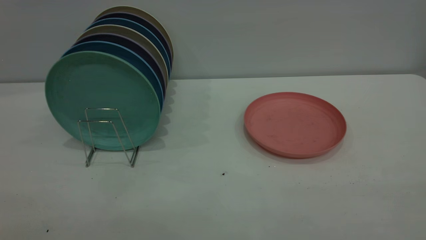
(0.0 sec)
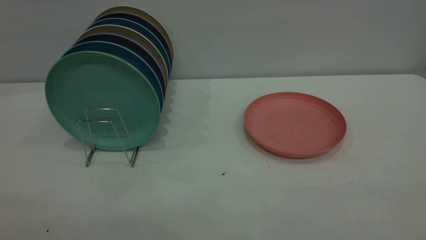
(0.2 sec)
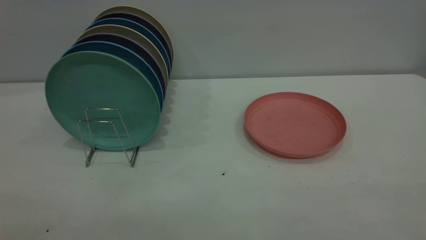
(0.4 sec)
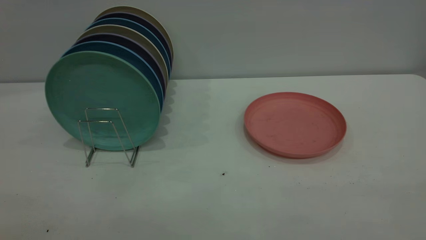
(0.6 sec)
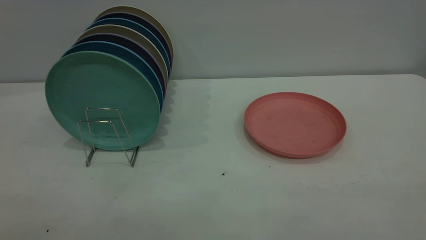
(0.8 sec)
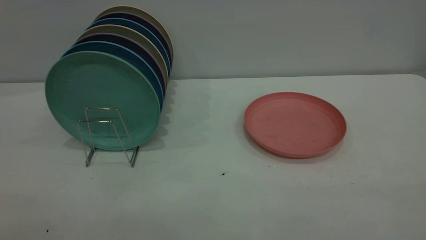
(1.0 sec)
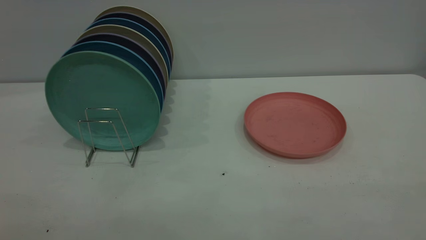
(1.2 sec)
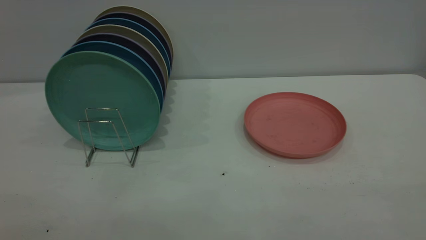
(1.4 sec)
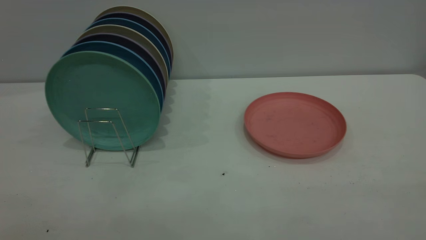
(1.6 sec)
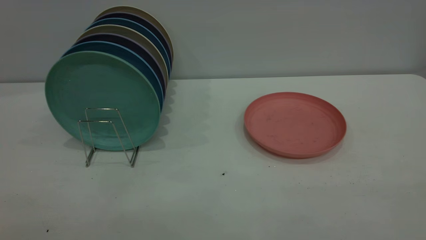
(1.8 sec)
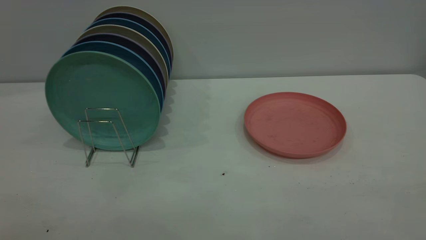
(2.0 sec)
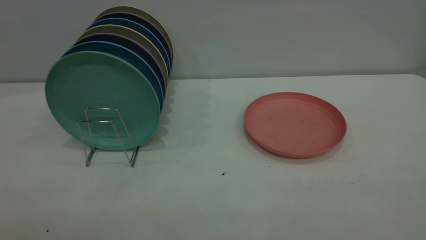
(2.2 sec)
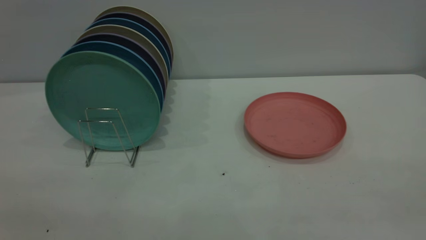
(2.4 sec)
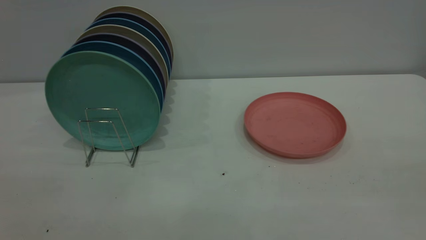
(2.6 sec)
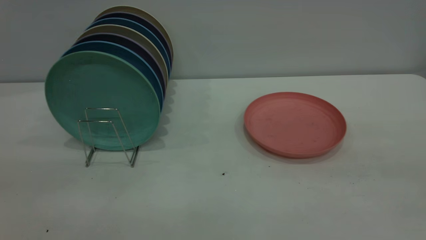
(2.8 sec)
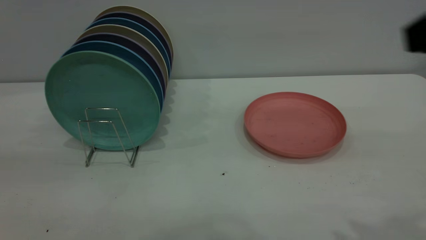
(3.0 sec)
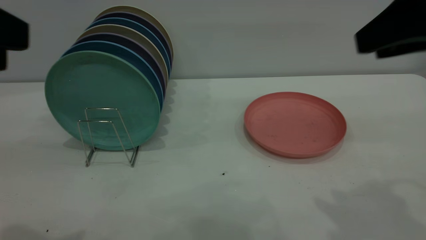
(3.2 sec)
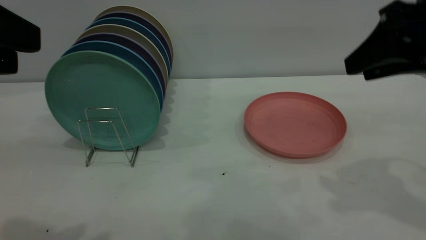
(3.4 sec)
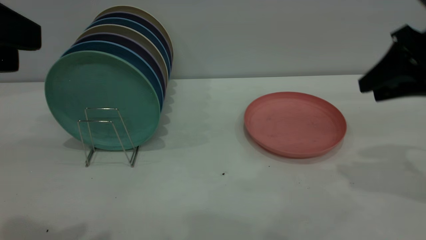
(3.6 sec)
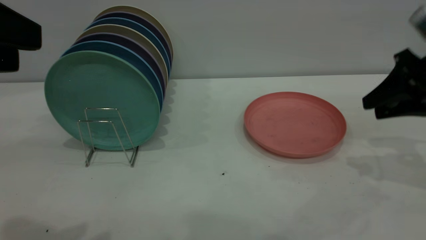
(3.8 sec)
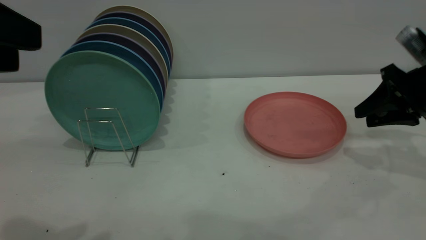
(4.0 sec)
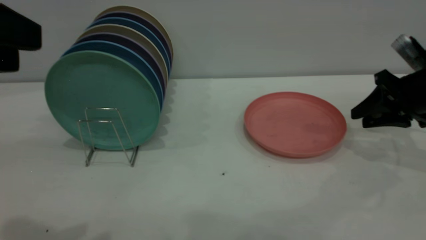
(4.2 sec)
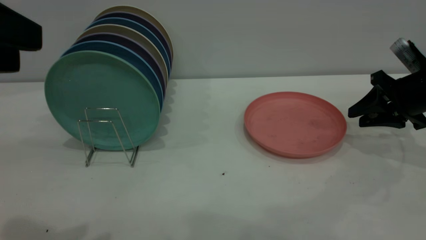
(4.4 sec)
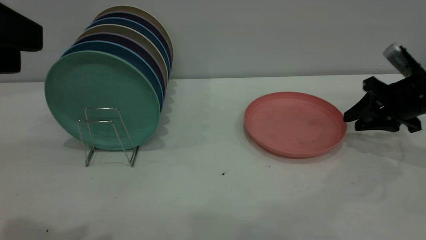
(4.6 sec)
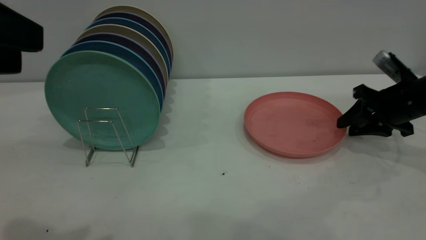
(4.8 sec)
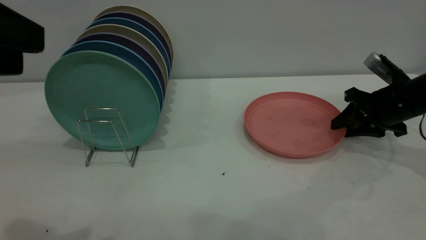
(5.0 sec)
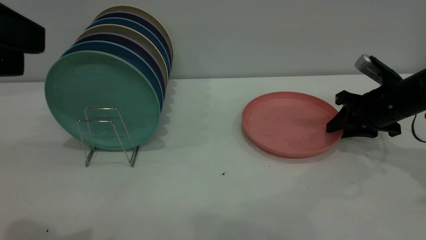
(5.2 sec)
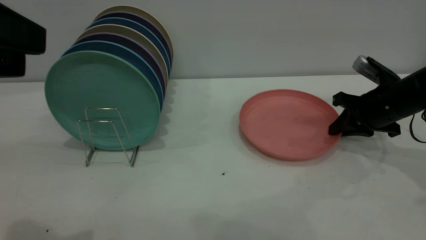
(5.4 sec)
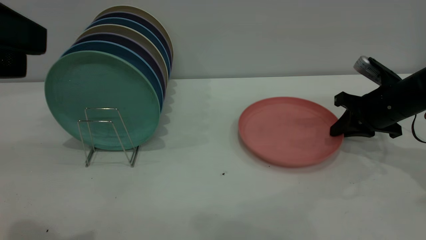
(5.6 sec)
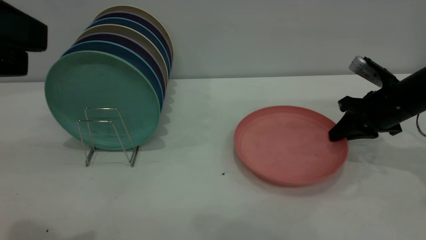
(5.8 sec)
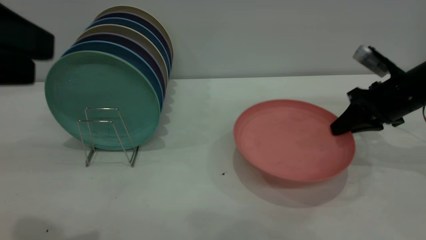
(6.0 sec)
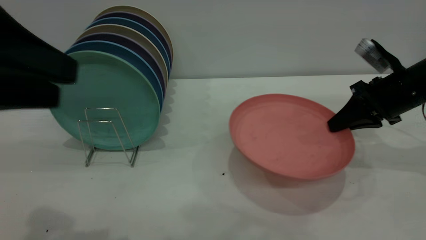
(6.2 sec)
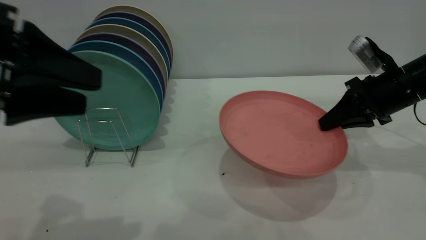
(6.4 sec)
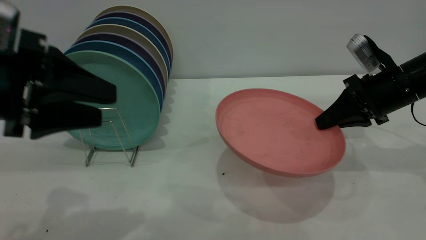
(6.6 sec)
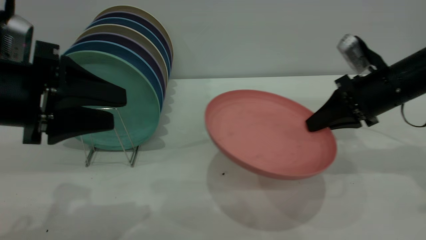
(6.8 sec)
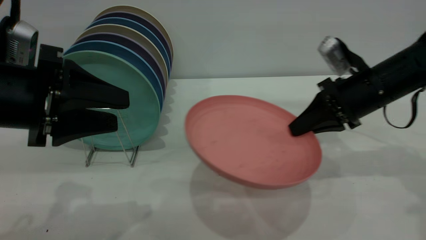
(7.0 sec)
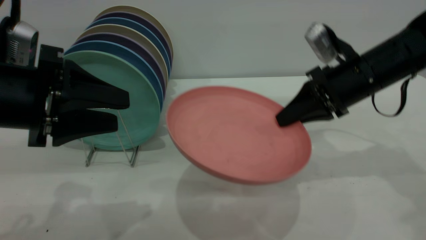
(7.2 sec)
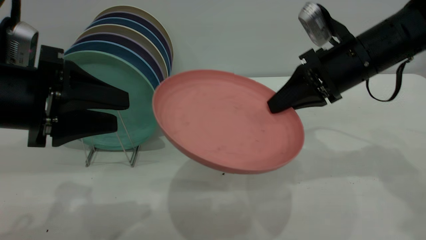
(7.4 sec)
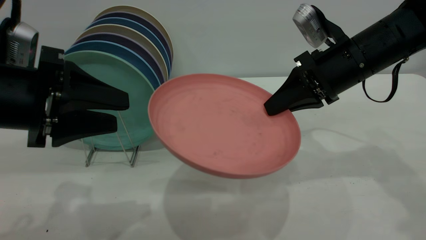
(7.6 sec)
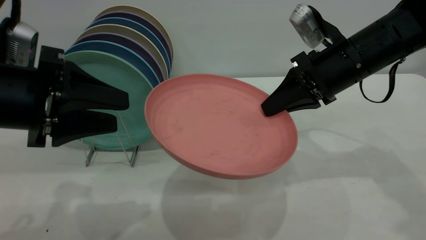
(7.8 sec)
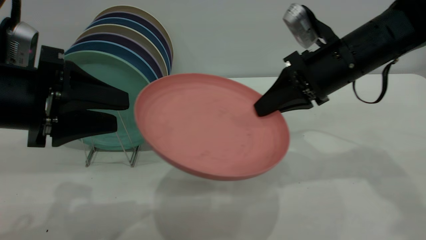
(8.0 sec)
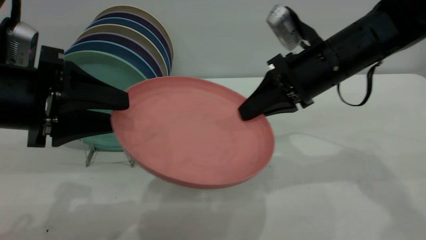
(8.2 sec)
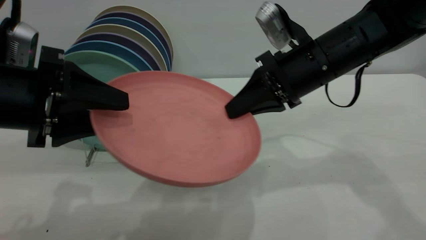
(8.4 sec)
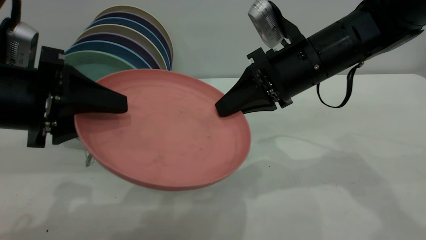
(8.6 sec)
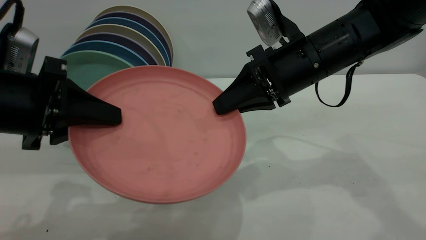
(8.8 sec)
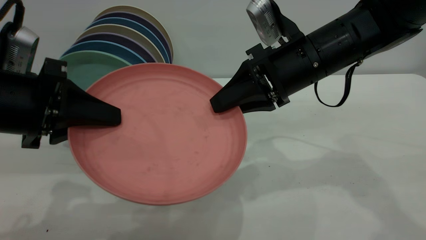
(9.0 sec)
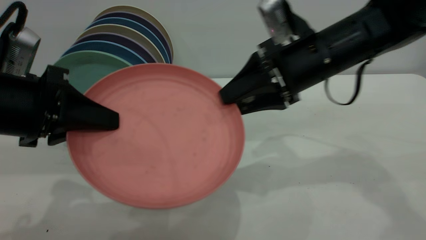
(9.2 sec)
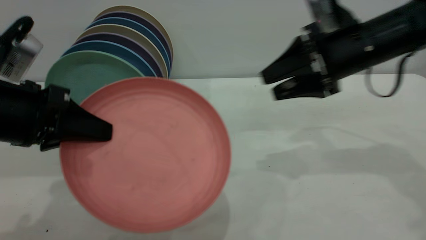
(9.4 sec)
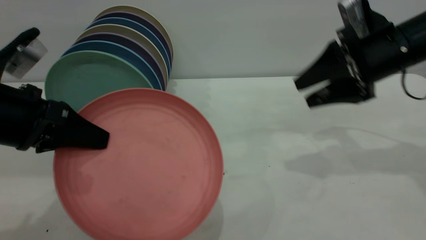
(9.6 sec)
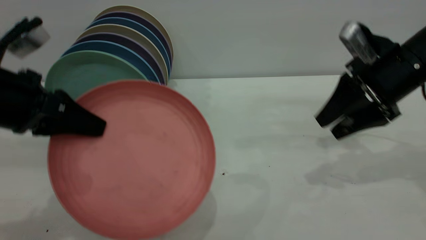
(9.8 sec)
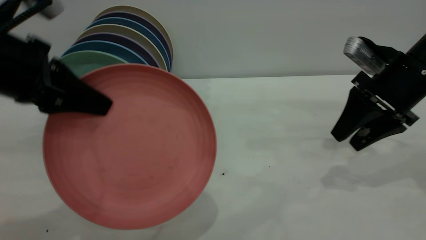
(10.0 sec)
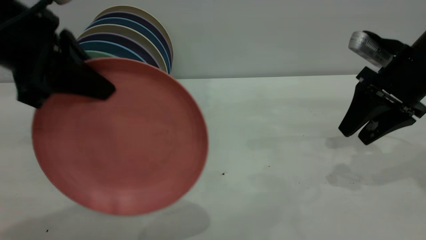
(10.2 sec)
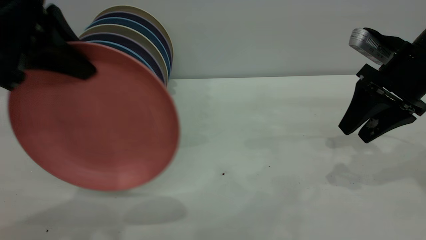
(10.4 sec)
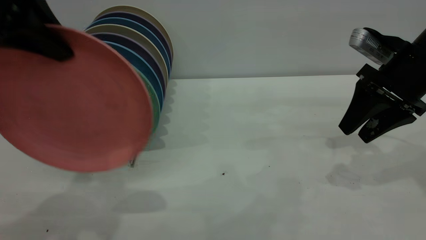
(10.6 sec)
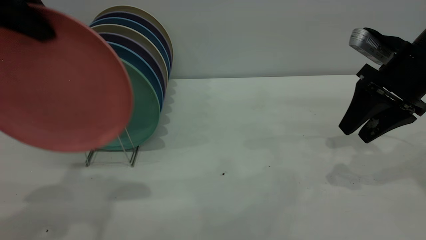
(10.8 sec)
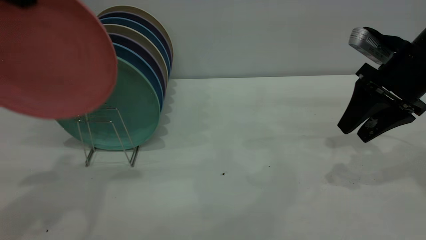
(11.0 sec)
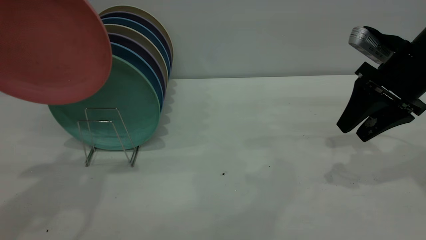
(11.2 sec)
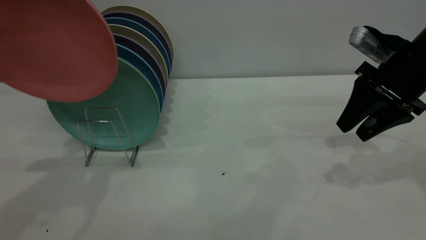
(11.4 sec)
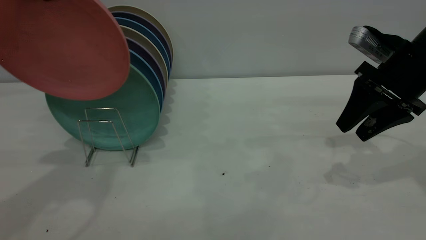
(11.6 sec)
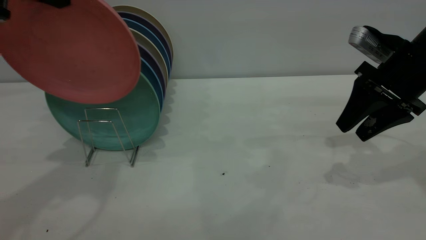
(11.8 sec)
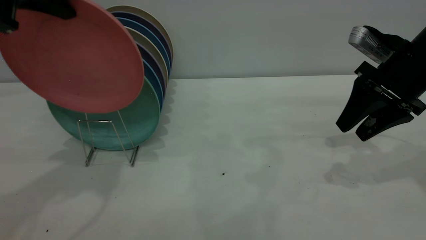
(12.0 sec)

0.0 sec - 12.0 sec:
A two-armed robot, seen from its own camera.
Task of the whole recording: the right gripper grasp the pink plate, the right gripper pass the pink plate to the left gripper, and the left gripper place the pink plate on the plate rack.
Step, 0.0 sec - 6.2 sec: Pick up the plate with the right gripper.
Step, 6.6 sec - 11.2 sec: Pass the plate from the right gripper to the left gripper.
0.0 sec - 1.6 sec: Neither gripper changes place.
1.6 sec - 3.0 sec: The right gripper moves forward, some 20 cm.
3.0 sec - 4.4 sec: The right gripper heads downward, forward and to the right, covering about 35 cm.
4.4 sec - 6.0 sec: The right gripper closes up.
6.0 sec - 7.6 sec: The right gripper shifts about 15 cm to the left and upward; the left gripper travels downward and forward by roughly 10 cm.
7.6 sec - 9.0 sec: The right gripper moves to the left, approximately 5 cm, and opens. The left gripper closes its fingers.
9.0 sec - 10.4 sec: The right gripper goes roughly 15 cm to the right, and opens up; the left gripper moves upward, roughly 10 cm.
10.4 sec - 12.0 sec: The left gripper heads forward, covering approximately 5 cm.

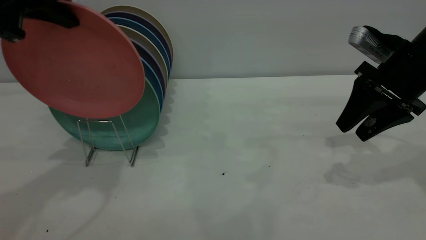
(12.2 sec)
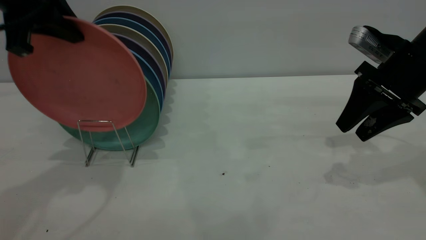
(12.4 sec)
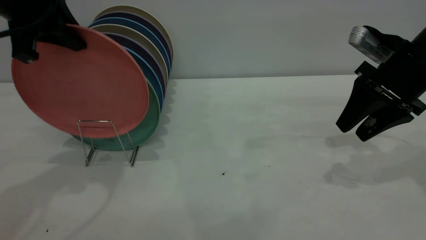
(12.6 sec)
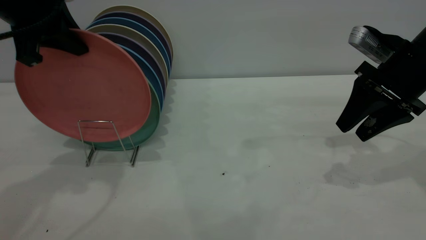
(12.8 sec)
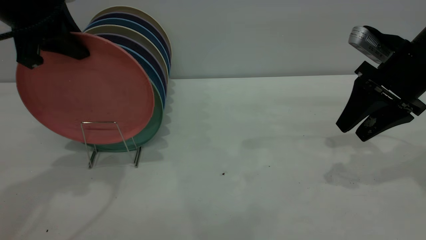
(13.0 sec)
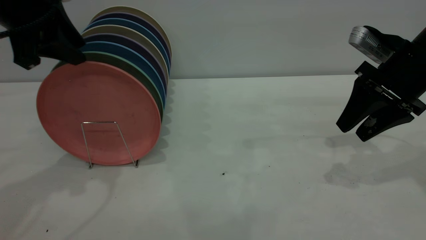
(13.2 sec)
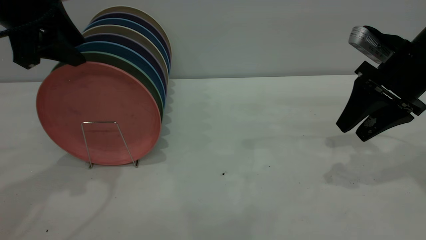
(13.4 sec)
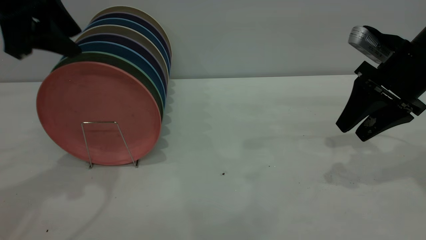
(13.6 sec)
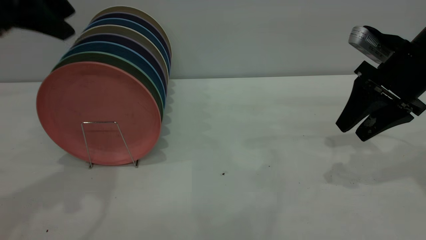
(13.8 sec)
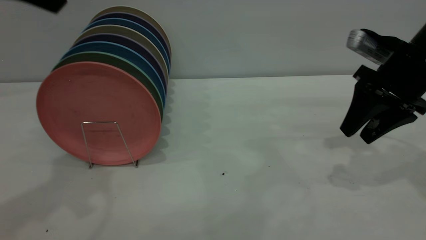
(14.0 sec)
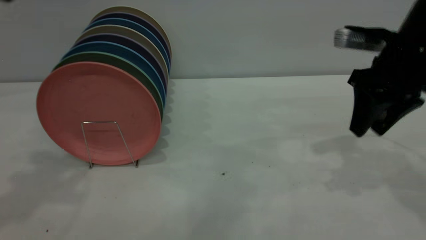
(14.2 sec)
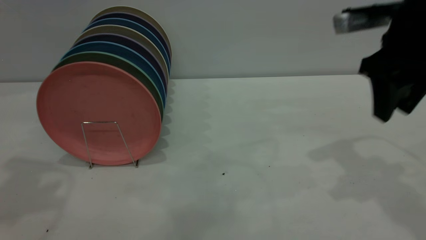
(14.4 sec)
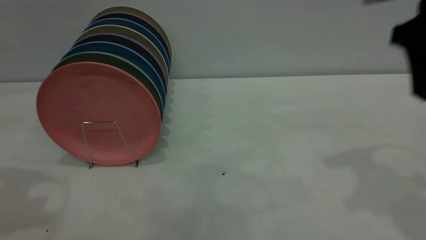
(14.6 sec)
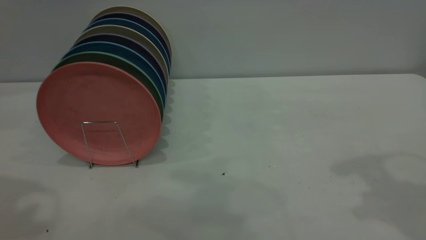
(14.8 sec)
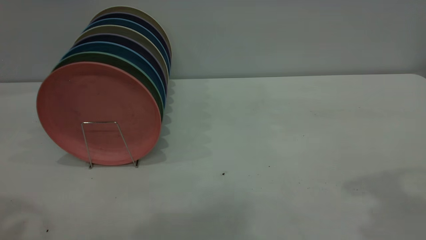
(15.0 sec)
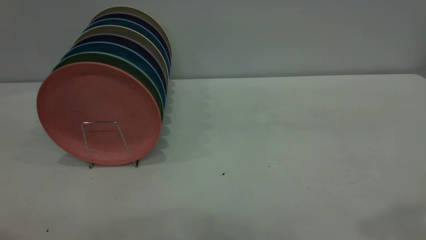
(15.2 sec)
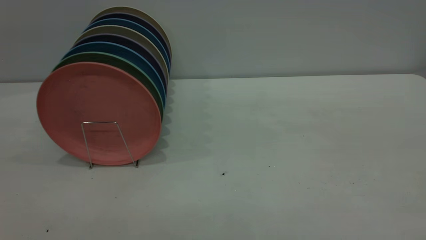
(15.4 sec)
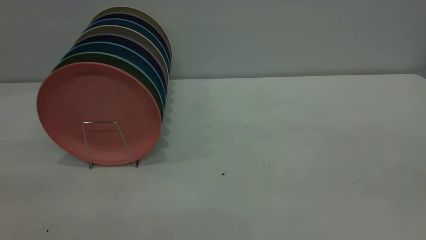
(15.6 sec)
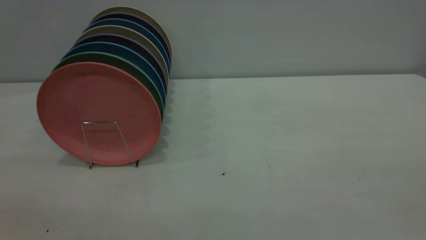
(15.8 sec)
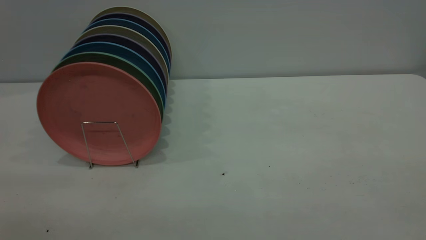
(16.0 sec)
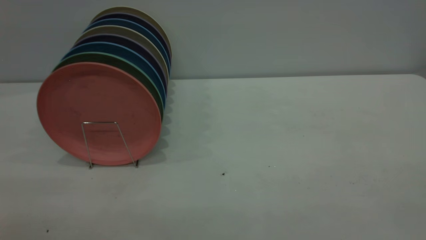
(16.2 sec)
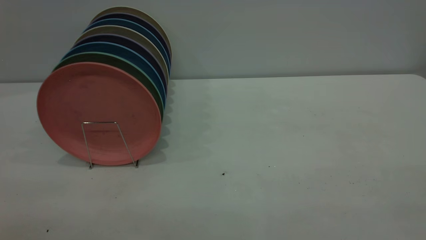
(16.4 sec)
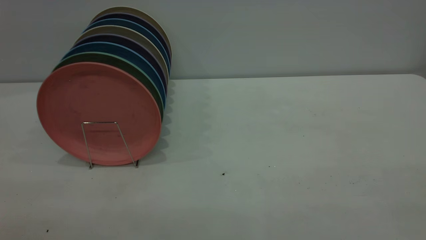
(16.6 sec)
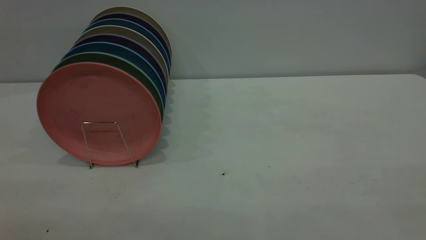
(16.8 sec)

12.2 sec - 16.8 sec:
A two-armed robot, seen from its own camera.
Task of the whole recording: the right gripper grasp the pink plate, the right gripper pass the pink plate to the left gripper, and the left gripper place the pink plate on the plate rack.
Step, 12.2 sec - 13.8 sec: Place the plate on the shelf.
12.2 sec - 13.8 sec: The left gripper opens.
13.8 sec - 15.2 sec: The left gripper shifts some 20 cm backward and upward. Meanwhile the right gripper travels upward and backward by roughly 35 cm.
